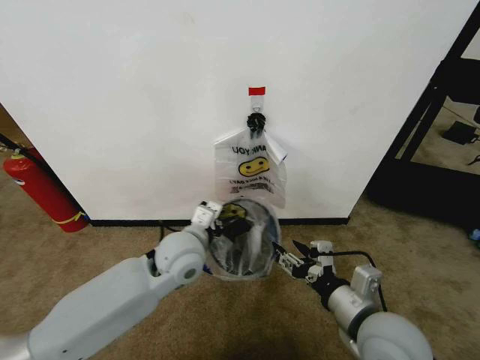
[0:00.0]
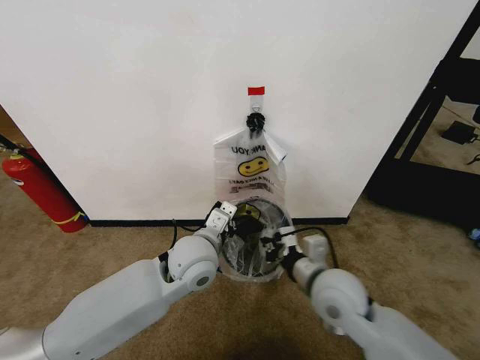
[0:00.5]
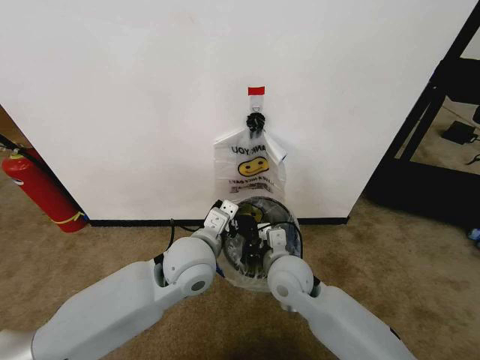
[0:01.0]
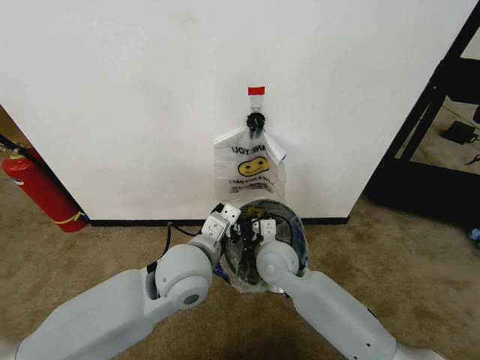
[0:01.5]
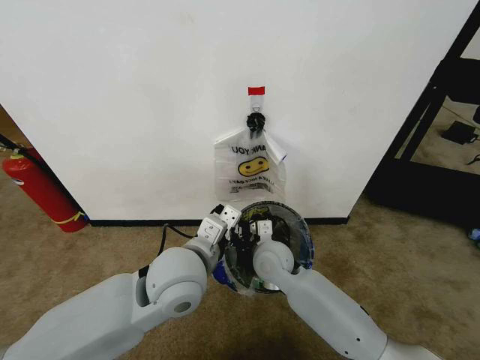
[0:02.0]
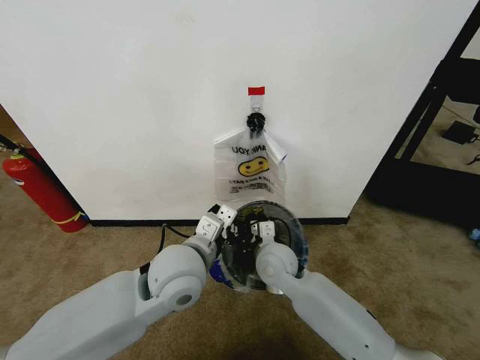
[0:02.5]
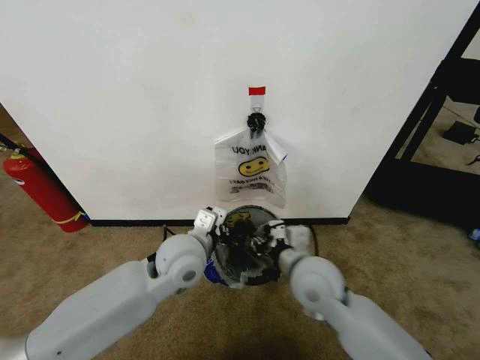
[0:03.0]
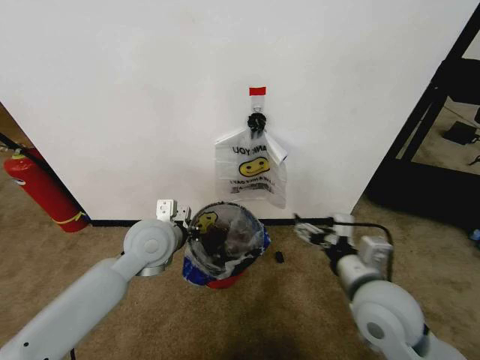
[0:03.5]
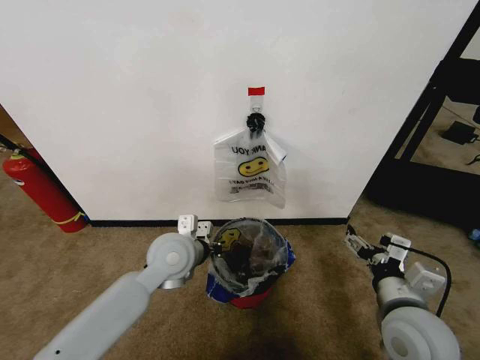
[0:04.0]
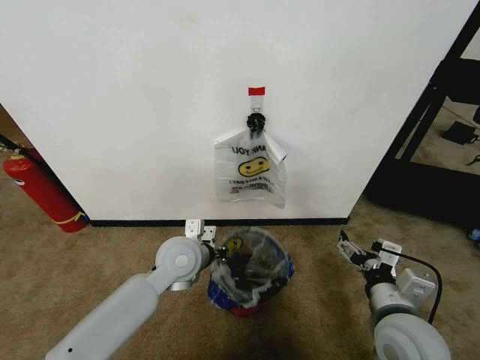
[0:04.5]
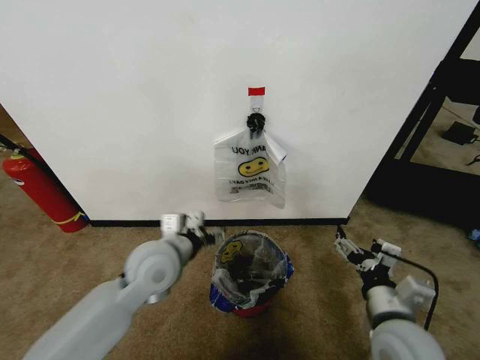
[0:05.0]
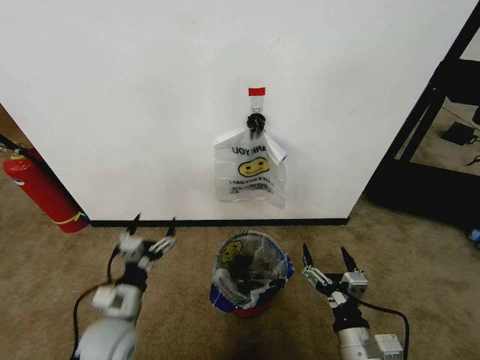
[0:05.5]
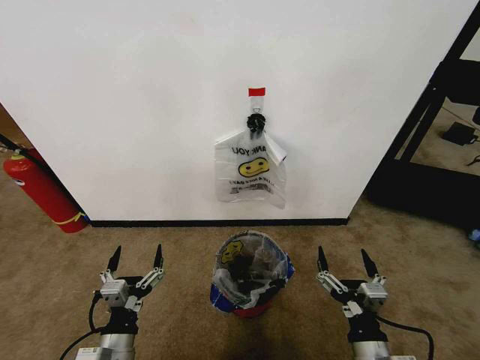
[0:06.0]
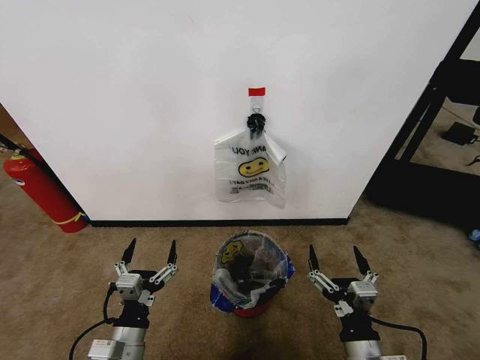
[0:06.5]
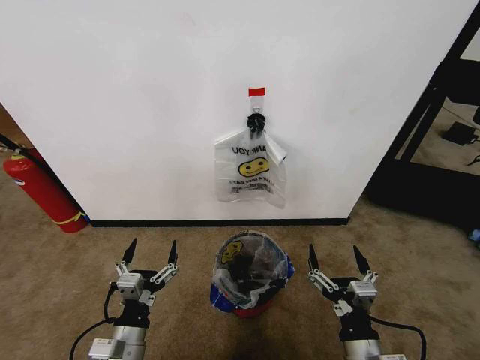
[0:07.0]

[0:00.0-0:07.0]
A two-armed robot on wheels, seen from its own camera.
Task of the whole recording: Pick up the garbage bag from the wall and place it over the trash bin.
0:00.0 to 0:02.0: The left gripper travels backward by approximately 5 cm, while the right gripper moves forward, to the left and downward, approximately 25 cm, and closes.
0:02.0 to 0:03.5: The left gripper shifts roughly 10 cm forward and to the left, while the right gripper goes some 25 cm to the right, backward and upward, and opens its fingers.
0:03.5 to 0:05.0: The left gripper opens. Meanwhile the right gripper travels downward by about 5 cm.
0:05.0 to 0:07.0: The right gripper moves backward and downward, approximately 10 cm; the left gripper heads backward and downward, covering approximately 20 cm.
